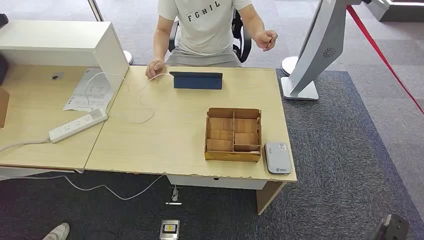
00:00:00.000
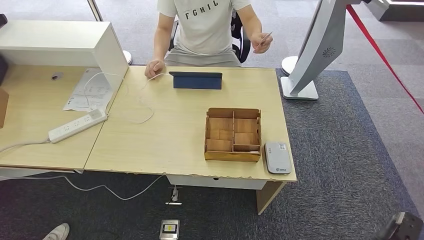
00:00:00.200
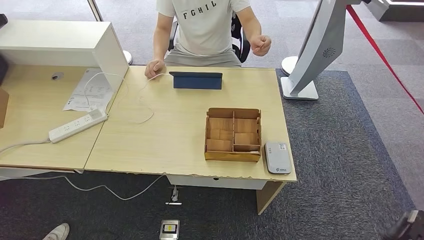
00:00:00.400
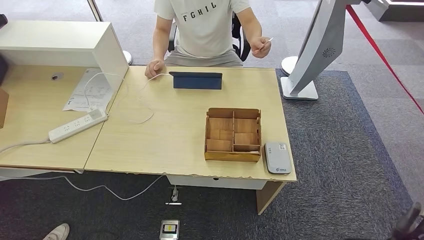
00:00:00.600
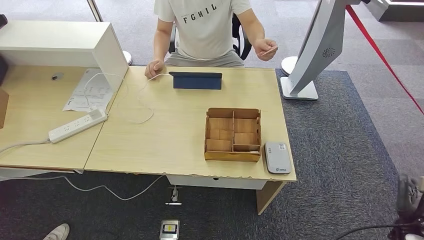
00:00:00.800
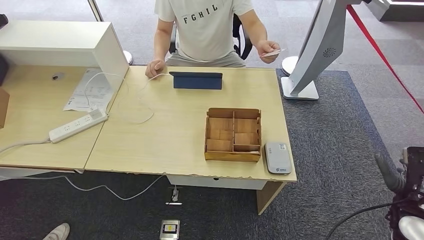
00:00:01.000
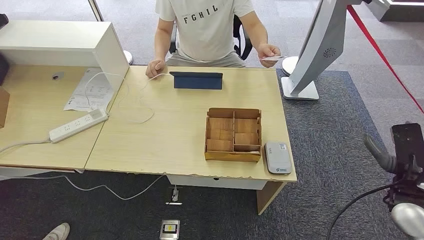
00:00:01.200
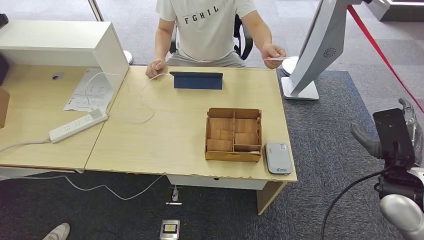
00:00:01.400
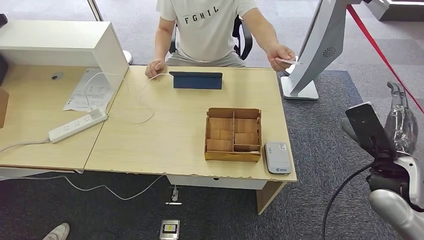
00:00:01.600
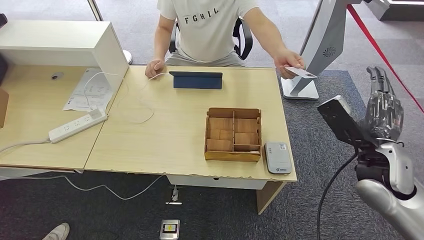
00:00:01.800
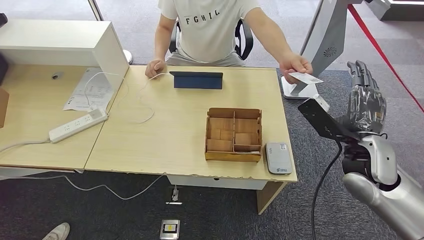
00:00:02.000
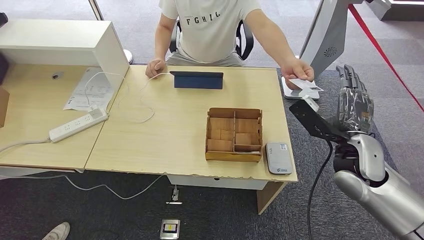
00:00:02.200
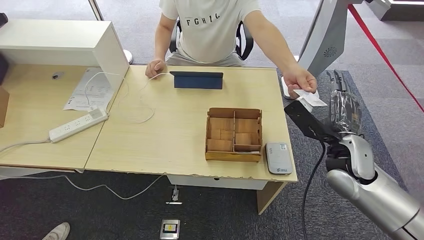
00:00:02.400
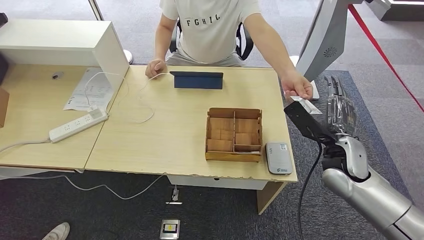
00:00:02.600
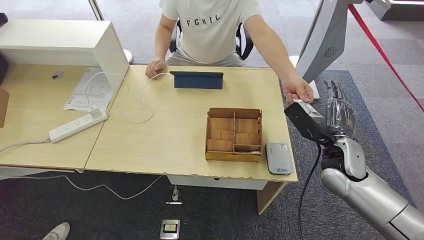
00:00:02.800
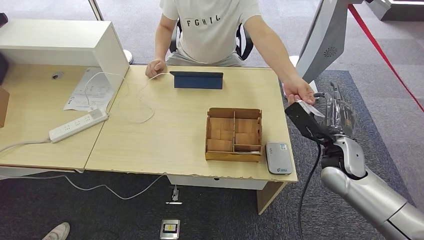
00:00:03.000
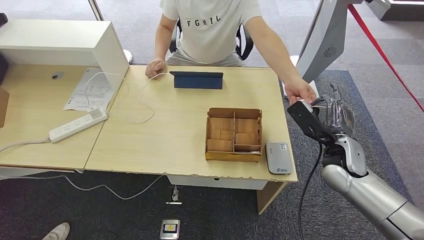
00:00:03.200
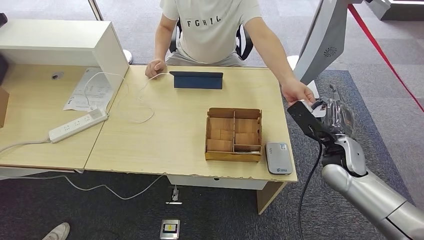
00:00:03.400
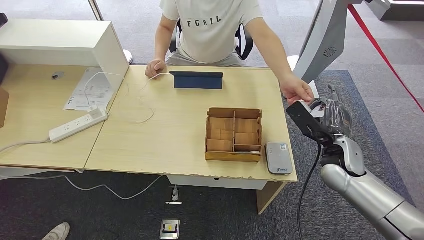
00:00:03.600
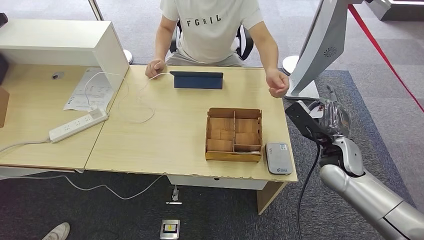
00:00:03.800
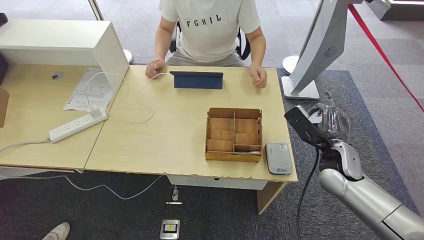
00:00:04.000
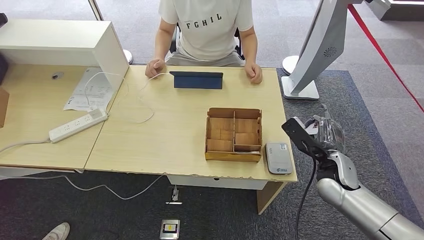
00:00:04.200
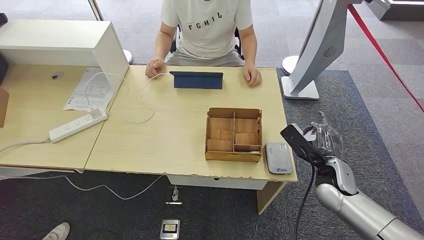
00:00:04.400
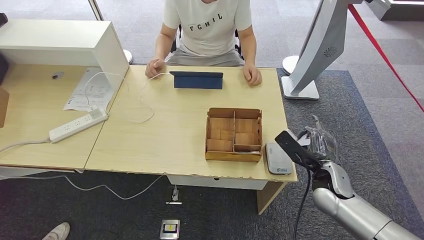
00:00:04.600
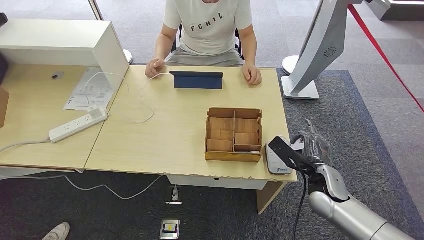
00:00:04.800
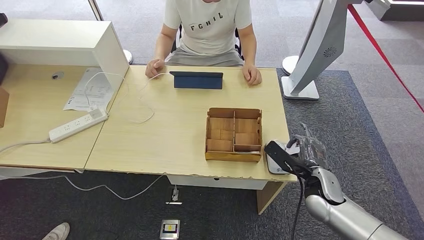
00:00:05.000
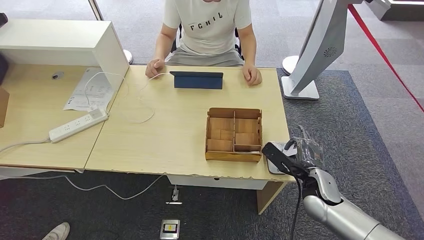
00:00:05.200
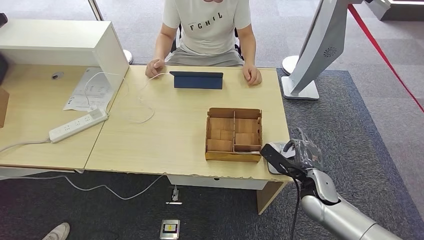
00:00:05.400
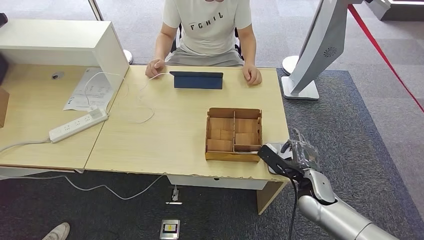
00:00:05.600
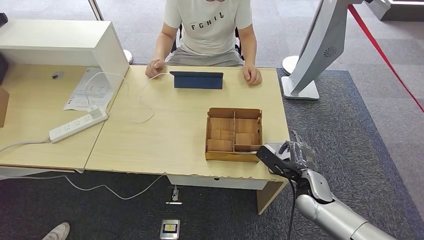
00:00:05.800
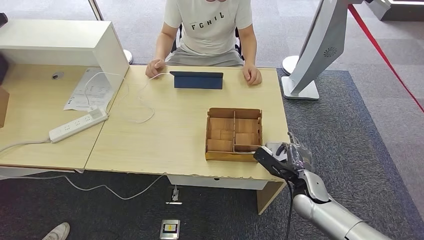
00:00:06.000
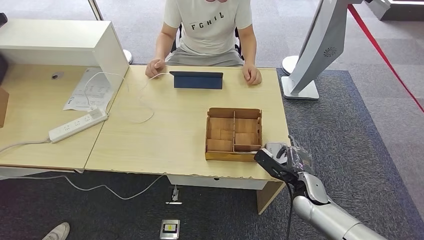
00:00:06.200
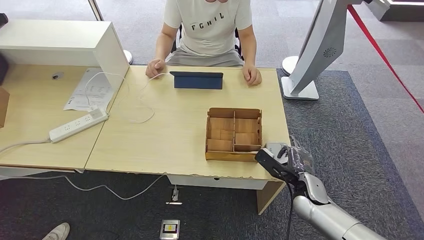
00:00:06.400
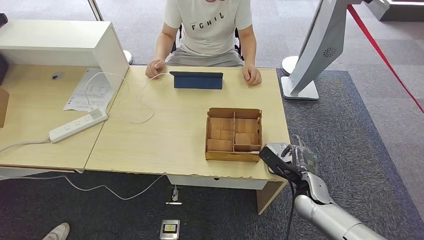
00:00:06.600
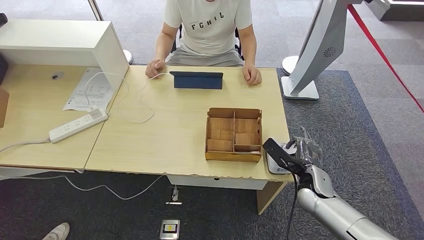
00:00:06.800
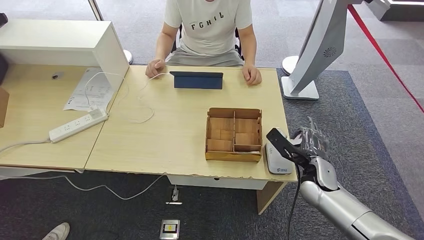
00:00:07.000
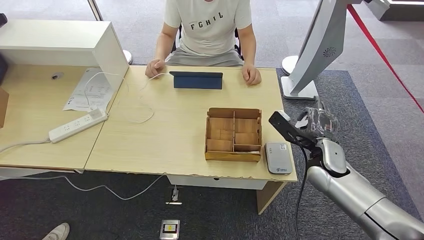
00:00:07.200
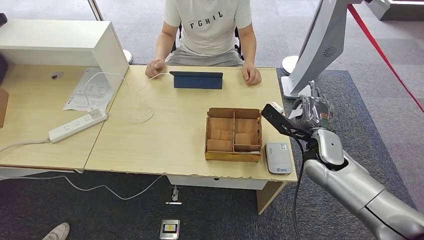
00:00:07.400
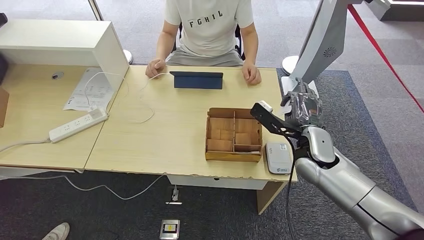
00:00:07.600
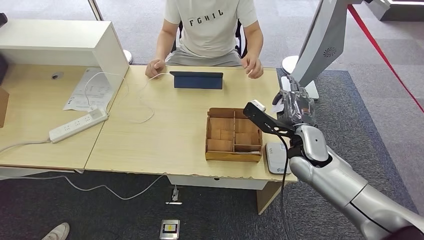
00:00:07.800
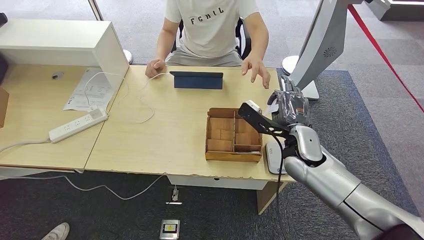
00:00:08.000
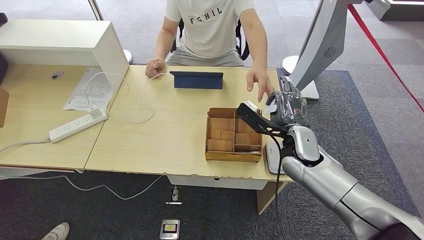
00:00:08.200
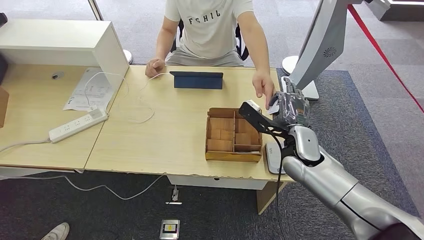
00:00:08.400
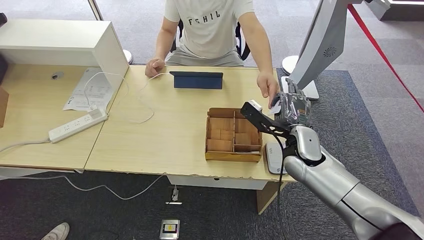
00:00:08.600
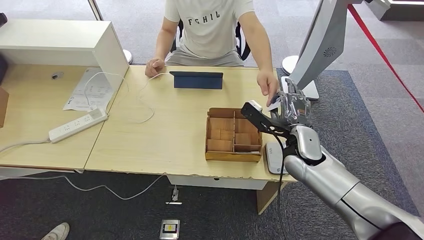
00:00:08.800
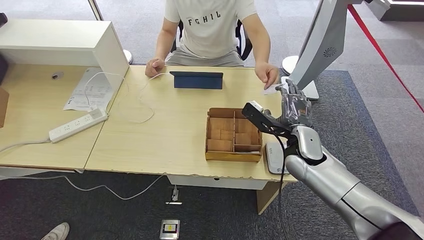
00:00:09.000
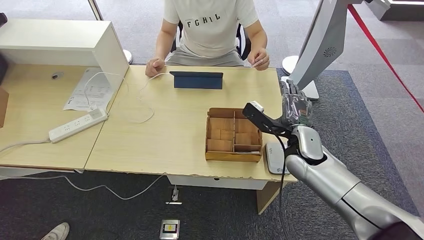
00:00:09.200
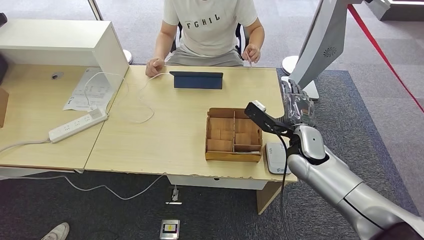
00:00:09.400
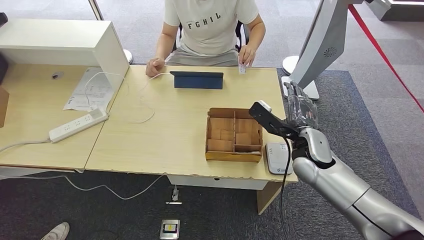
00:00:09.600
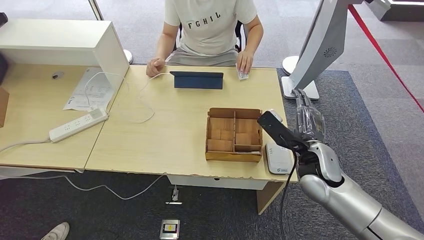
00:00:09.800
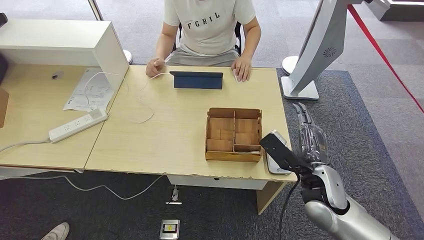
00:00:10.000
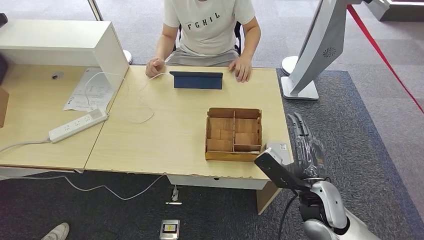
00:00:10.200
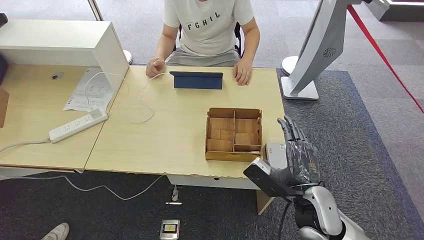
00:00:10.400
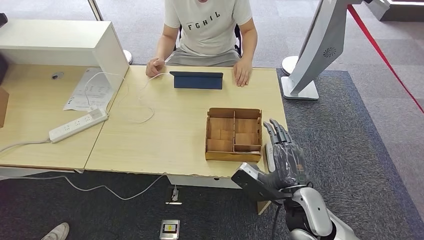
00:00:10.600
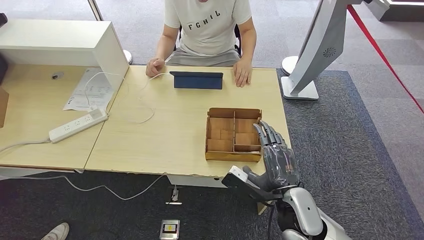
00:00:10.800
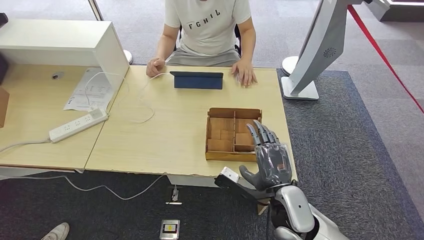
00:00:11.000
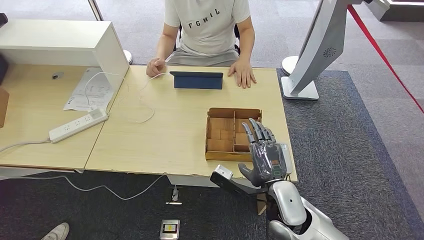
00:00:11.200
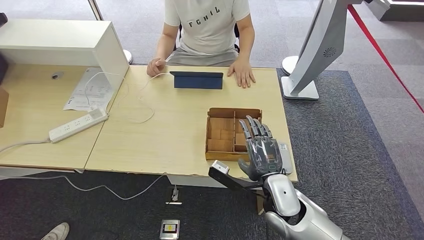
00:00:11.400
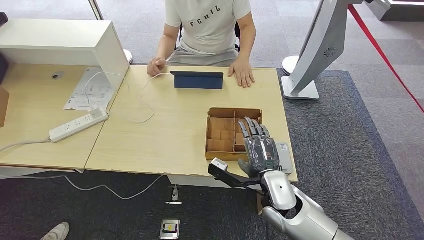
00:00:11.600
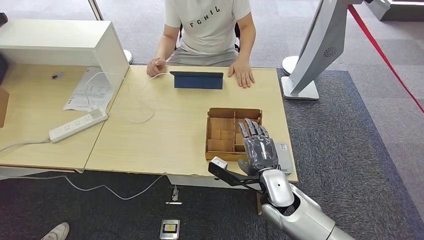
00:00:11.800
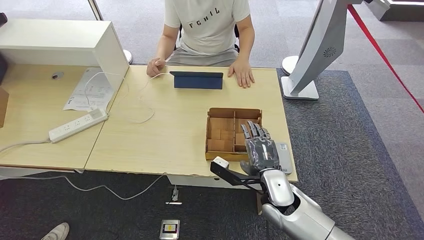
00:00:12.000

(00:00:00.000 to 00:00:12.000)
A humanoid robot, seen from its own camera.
Step, 00:00:00.000 - 00:00:03.800: Take the ID card from the person's hand.
Step, 00:00:04.200 - 00:00:06.000: Place the ID card on the card reader.
Step, 00:00:07.000 - 00:00:09.800: Hand the ID card to the person.
00:00:01.600 - 00:00:03.000: The right hand shifts some 10 cm forward and to the left.
00:00:03.000 - 00:00:04.400: The right hand heads downward, covering about 5 cm.
00:00:04.400 - 00:00:06.000: The right hand goes about 5 cm downward.
00:00:06.000 - 00:00:07.600: The right hand heads upward and forward, covering roughly 15 cm.
00:00:07.600 - 00:00:09.000: The hands stay close to where they were, moving slightly.
00:00:09.000 - 00:00:10.400: The right hand heads backward, covering approximately 15 cm.
00:00:10.400 - 00:00:12.000: The right hand is displaced to the left and forward by approximately 10 cm.

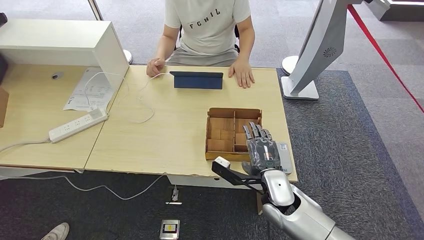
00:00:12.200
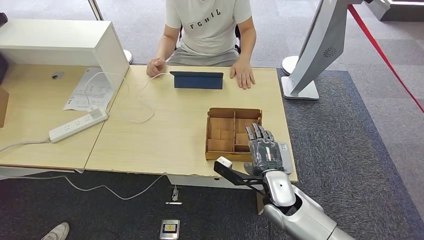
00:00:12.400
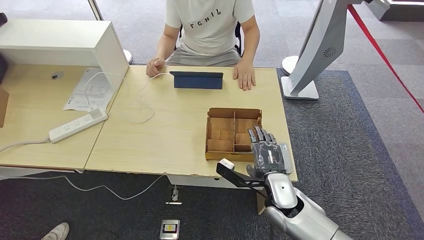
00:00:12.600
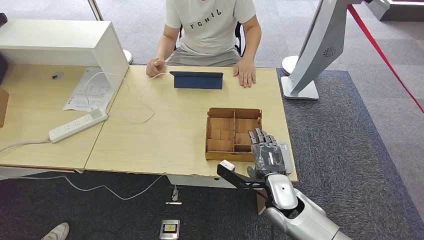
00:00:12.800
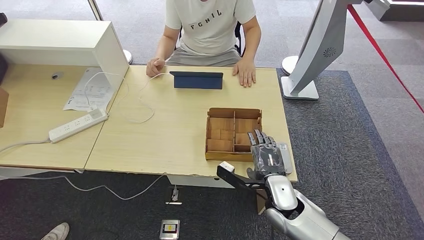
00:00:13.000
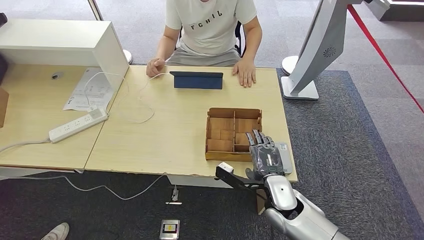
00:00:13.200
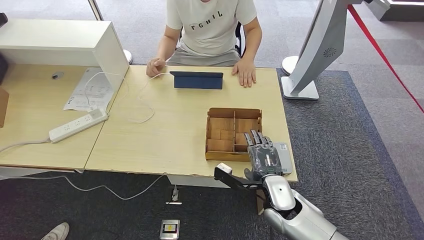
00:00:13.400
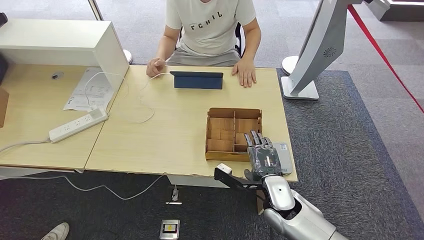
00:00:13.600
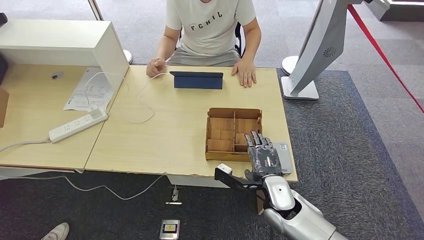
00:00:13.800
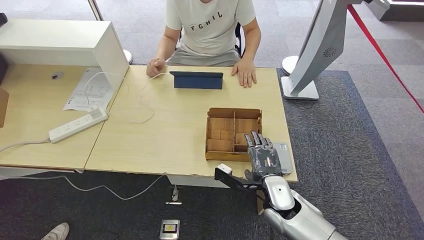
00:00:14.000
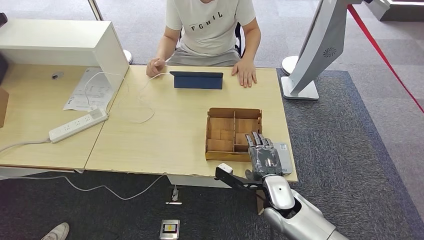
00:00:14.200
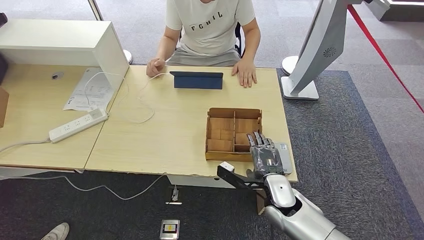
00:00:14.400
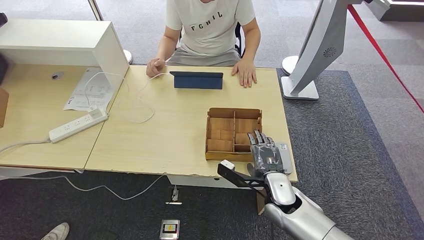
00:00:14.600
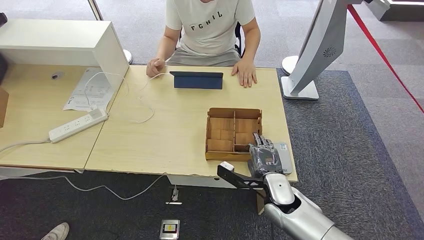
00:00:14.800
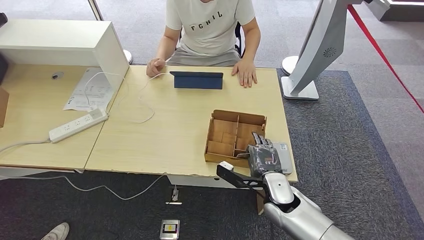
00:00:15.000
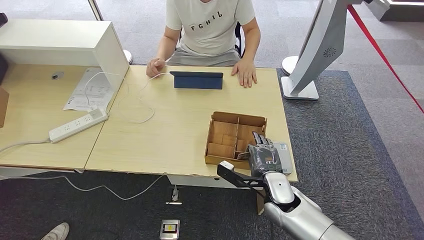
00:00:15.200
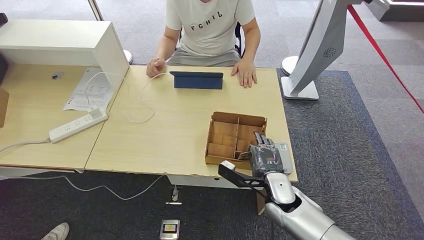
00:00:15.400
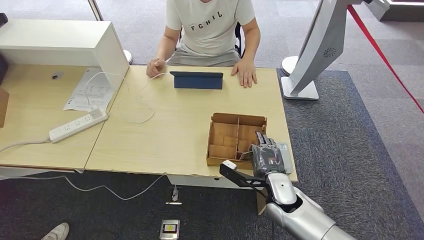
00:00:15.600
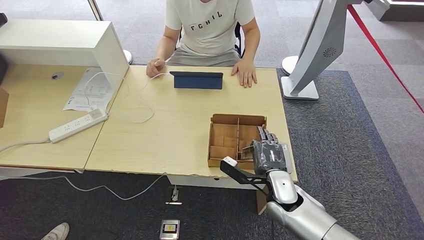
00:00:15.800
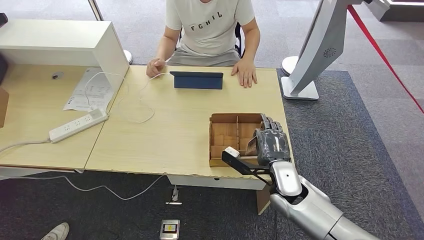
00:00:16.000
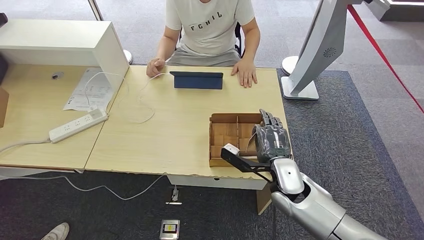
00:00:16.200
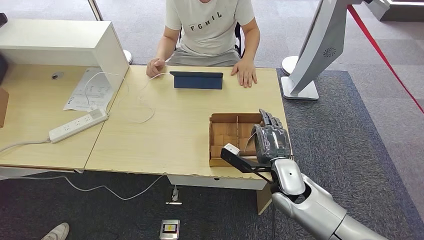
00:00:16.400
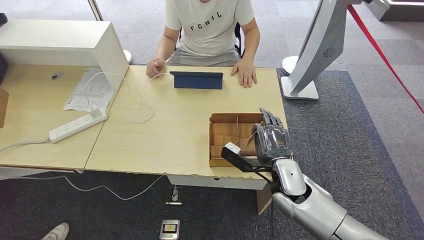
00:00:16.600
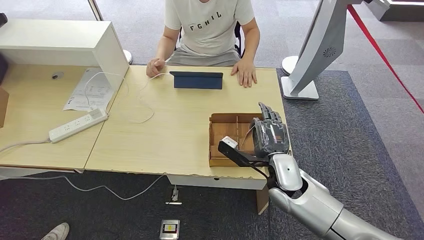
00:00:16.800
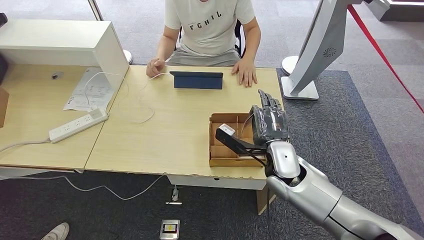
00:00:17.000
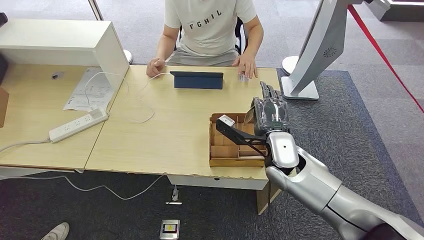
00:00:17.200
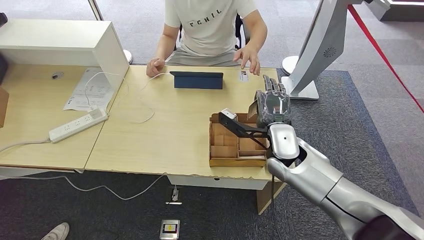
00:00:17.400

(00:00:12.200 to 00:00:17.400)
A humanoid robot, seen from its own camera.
Step, 00:00:12.200 - 00:00:16.600: Pick up the room key from the key card box.
00:00:12.200 - 00:00:15.600: The hands stay close to where they were, moving slightly.
00:00:15.600 - 00:00:17.400: The right hand travels upward and forward by some 15 cm.
